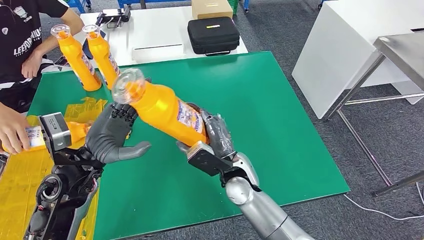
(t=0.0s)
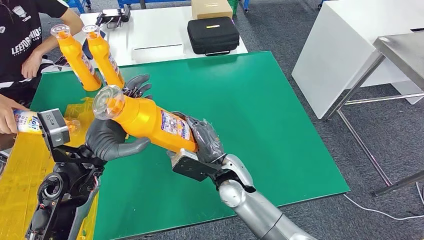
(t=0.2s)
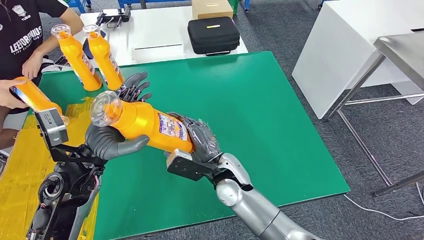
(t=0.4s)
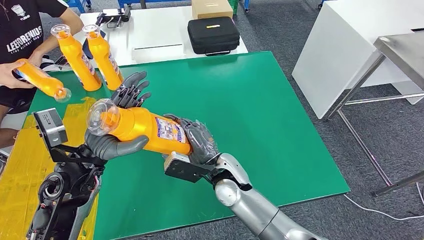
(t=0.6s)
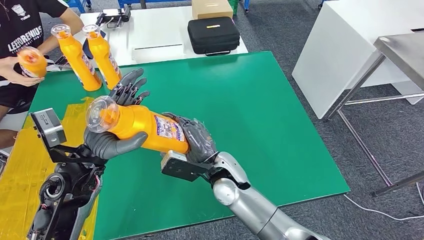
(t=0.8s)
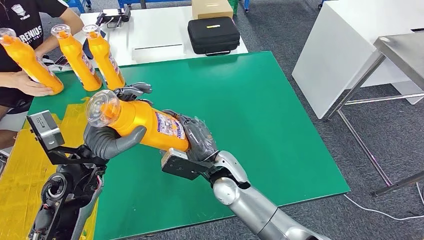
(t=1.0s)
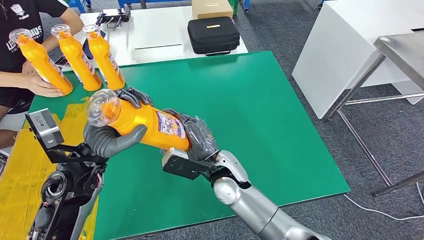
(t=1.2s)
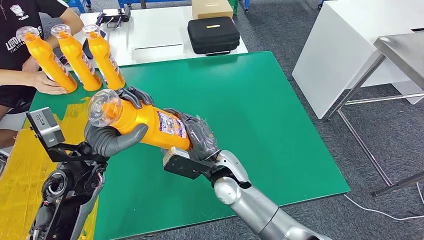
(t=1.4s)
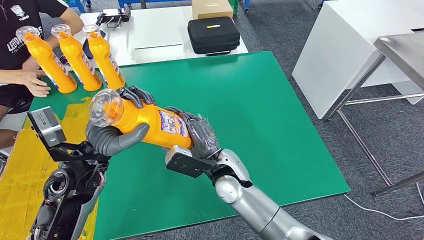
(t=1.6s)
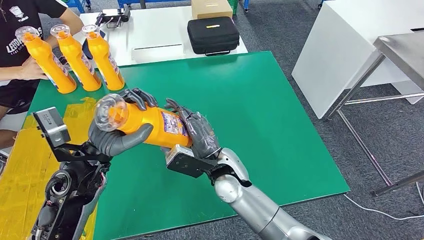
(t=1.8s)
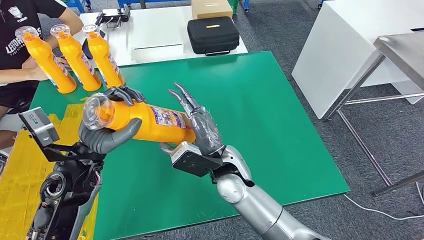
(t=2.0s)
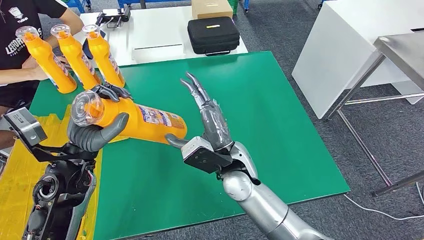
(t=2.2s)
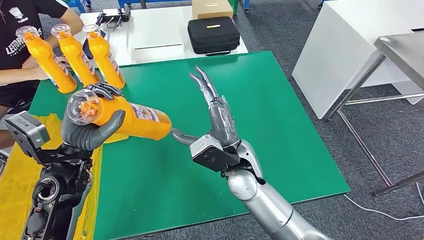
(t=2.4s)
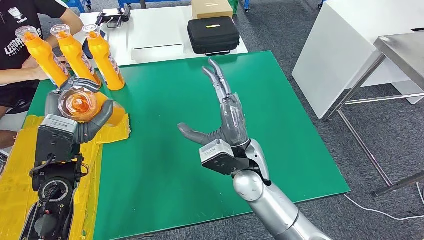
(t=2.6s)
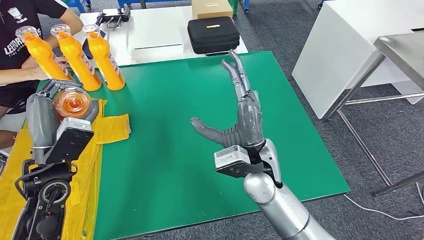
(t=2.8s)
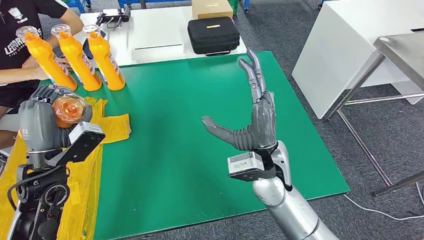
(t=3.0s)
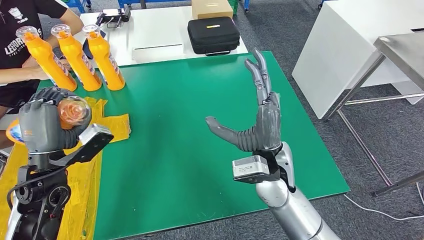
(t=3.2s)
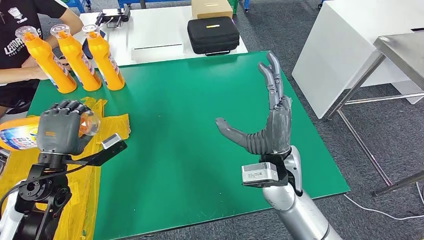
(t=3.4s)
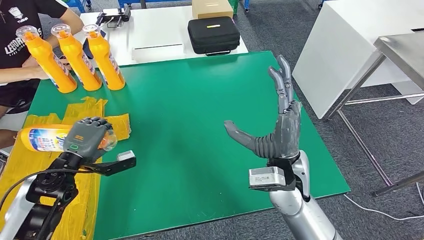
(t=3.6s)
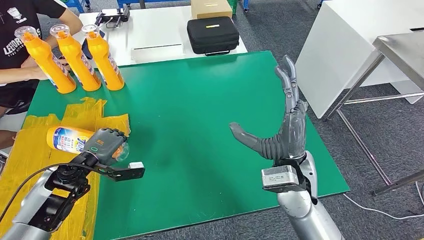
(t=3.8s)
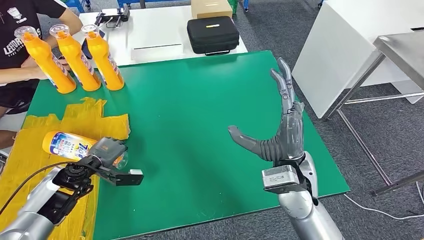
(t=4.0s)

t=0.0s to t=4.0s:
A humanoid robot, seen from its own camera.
Step, t=0.8s to t=3.8s: Flip the fast-moving consumer goods bottle to the front side.
t=0.0s to t=1.4s: There are only small adjustments of the hands.
t=1.4s to t=2.6s: The right hand is displaced upward by roughly 5 cm.
